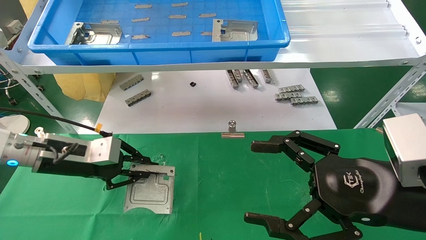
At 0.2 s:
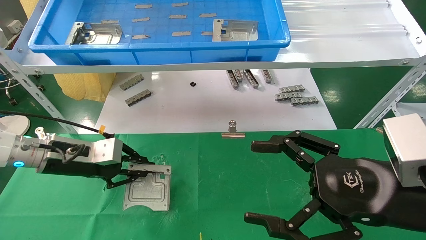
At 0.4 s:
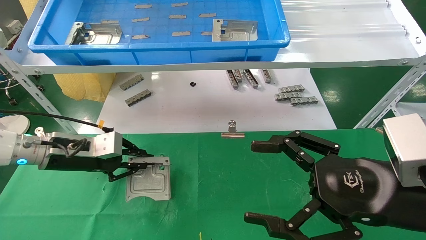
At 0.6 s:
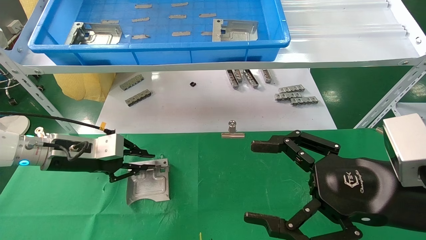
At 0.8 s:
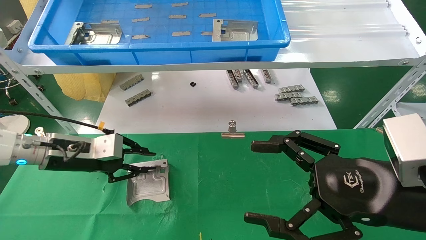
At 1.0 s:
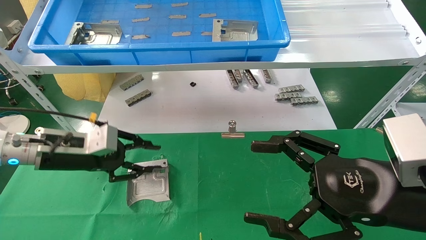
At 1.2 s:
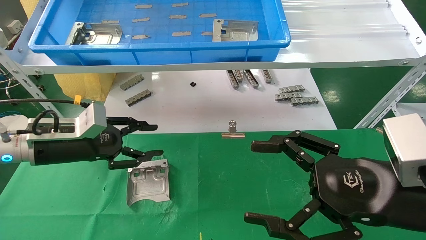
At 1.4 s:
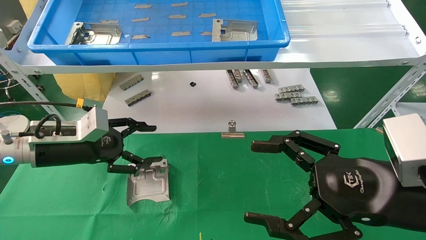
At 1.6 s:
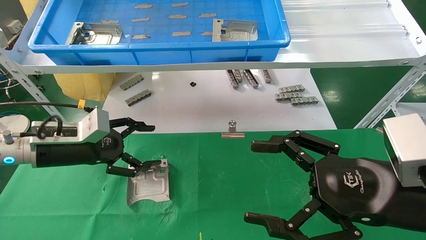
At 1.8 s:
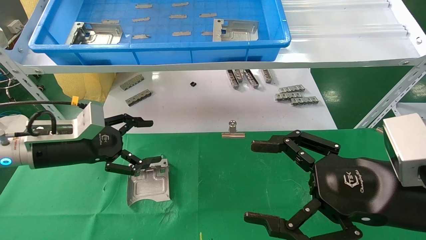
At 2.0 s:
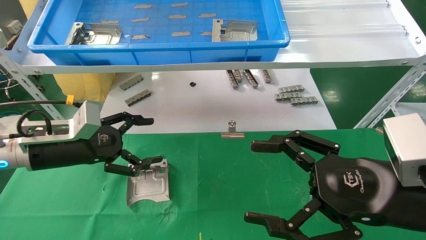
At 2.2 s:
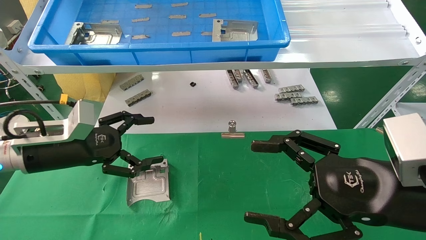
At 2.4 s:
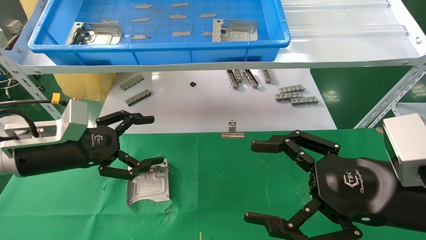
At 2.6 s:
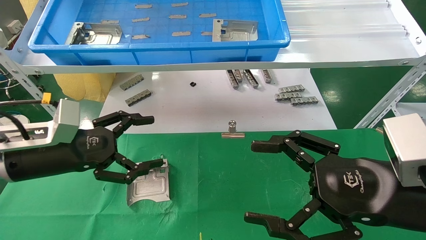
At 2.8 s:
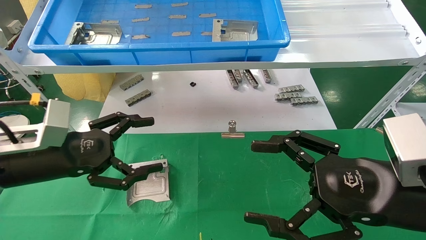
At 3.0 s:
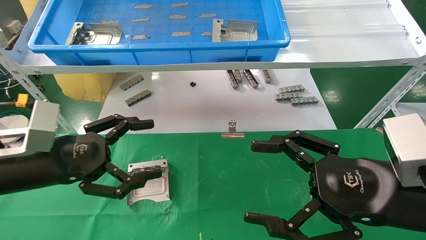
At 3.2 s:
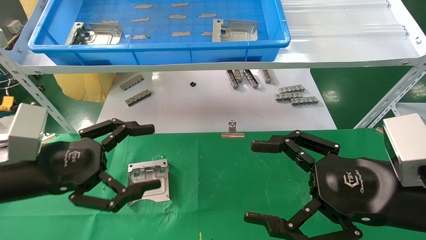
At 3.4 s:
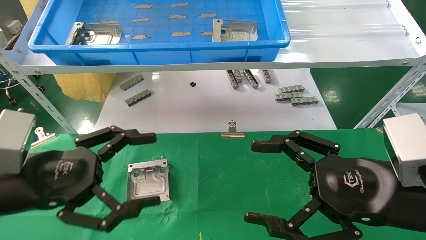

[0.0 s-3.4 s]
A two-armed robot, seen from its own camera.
Task of the whole recording: use the mechanical arm to pick up the parts and place them on the table.
Step, 0.0 to 2.6 s: Place the hard drive bracket into the box.
0.0 to 1.6 s: The left gripper opens.
1.6 to 3.4 s: The left gripper moves backward, some 15 cm.

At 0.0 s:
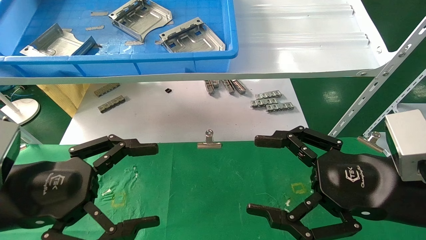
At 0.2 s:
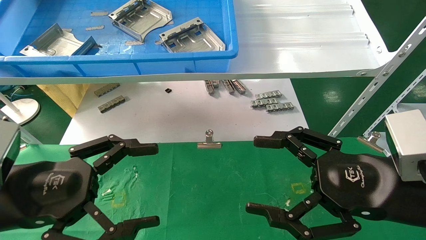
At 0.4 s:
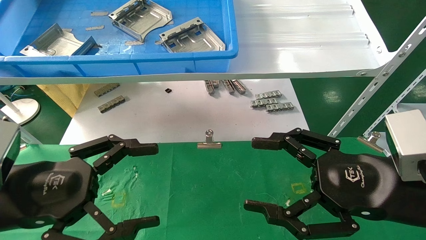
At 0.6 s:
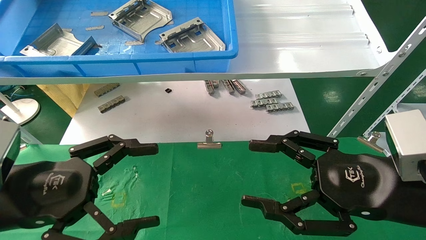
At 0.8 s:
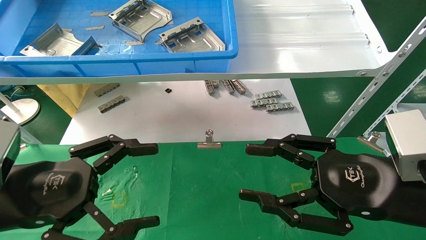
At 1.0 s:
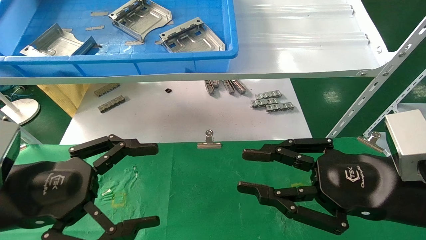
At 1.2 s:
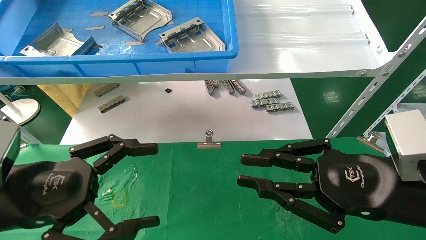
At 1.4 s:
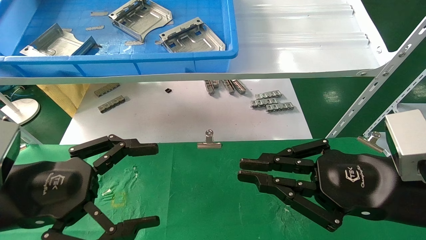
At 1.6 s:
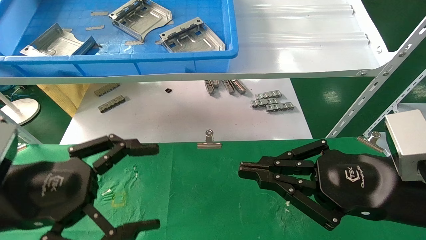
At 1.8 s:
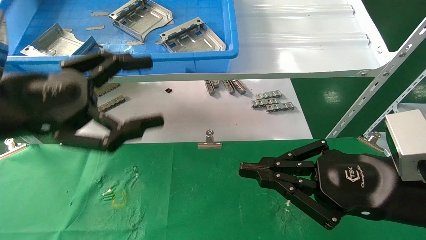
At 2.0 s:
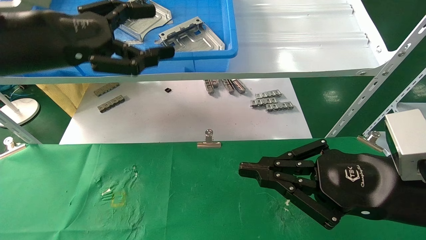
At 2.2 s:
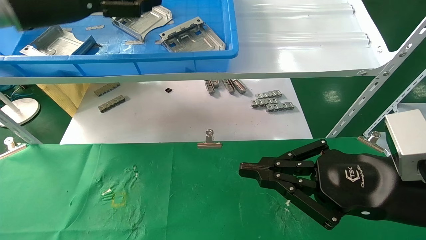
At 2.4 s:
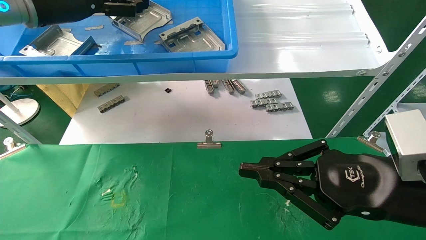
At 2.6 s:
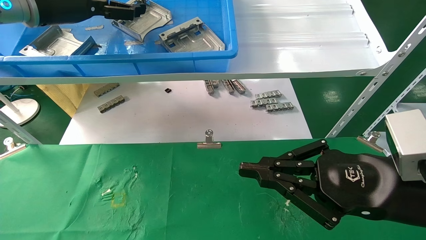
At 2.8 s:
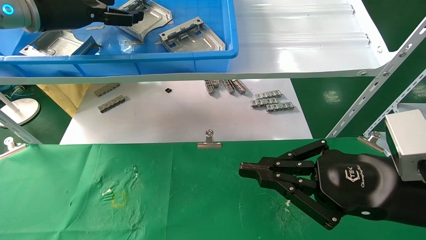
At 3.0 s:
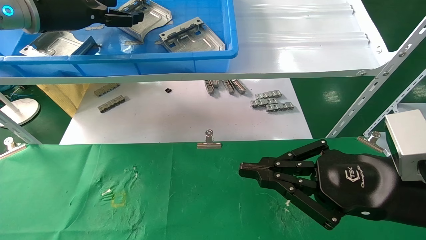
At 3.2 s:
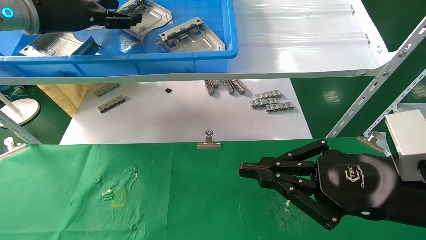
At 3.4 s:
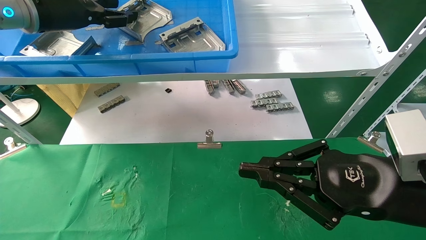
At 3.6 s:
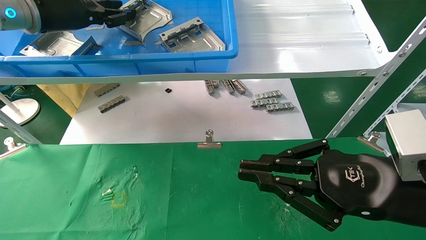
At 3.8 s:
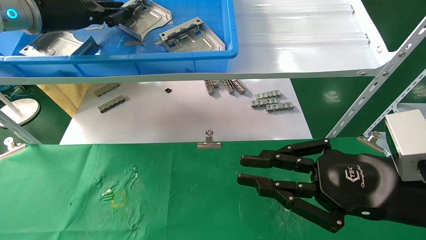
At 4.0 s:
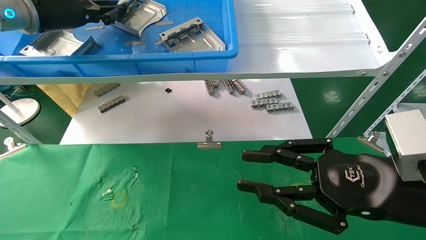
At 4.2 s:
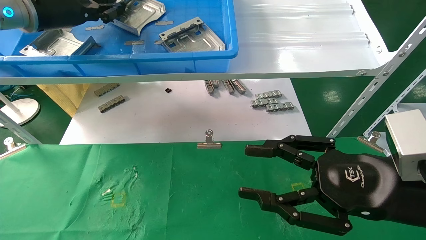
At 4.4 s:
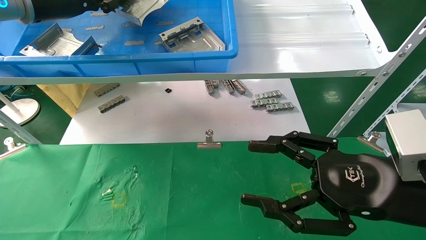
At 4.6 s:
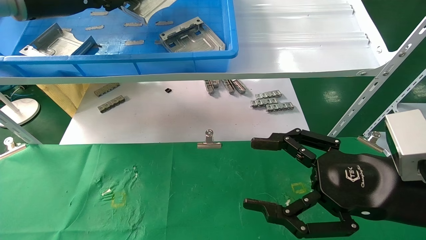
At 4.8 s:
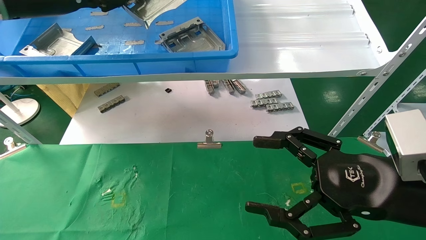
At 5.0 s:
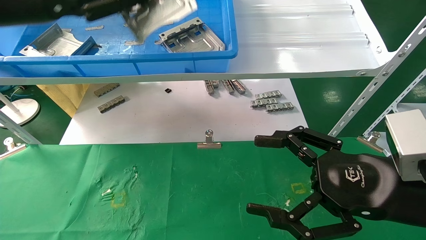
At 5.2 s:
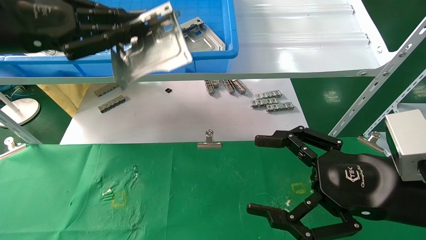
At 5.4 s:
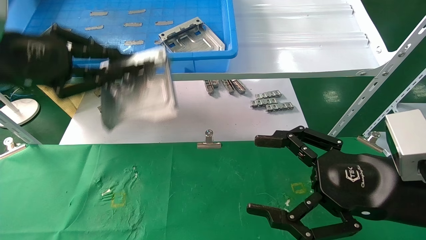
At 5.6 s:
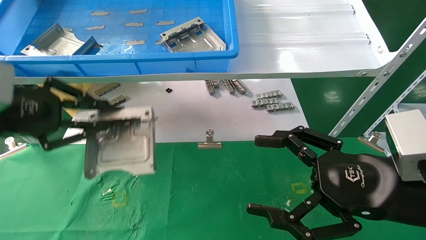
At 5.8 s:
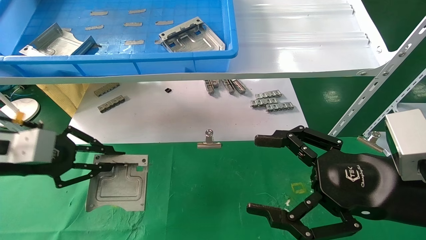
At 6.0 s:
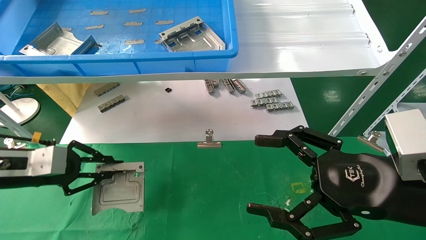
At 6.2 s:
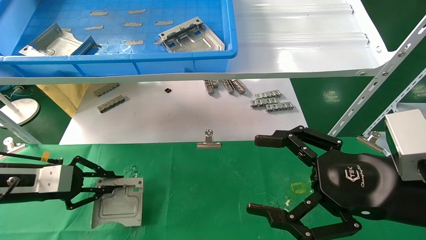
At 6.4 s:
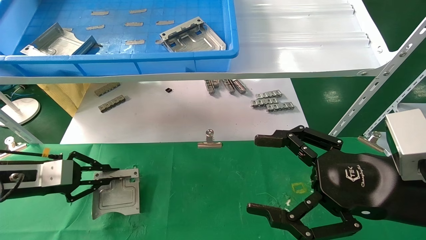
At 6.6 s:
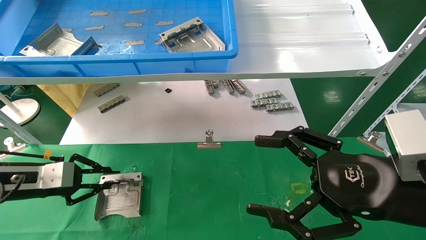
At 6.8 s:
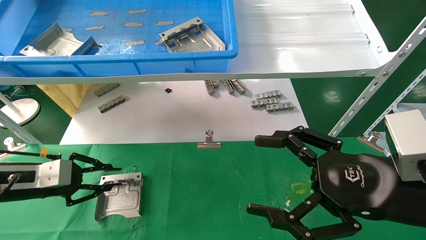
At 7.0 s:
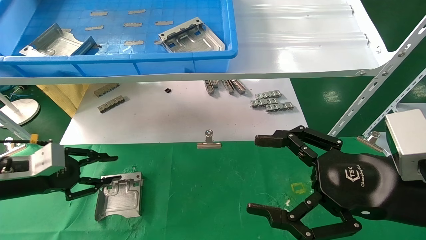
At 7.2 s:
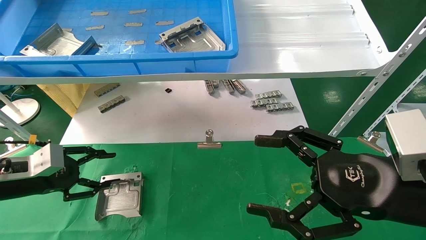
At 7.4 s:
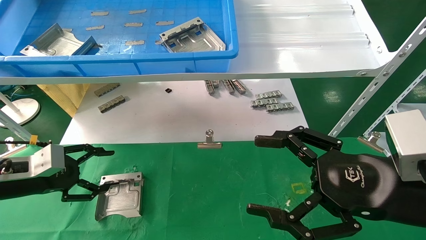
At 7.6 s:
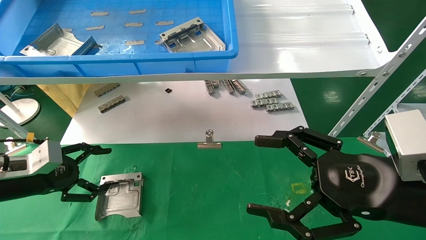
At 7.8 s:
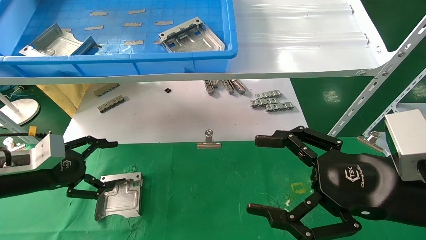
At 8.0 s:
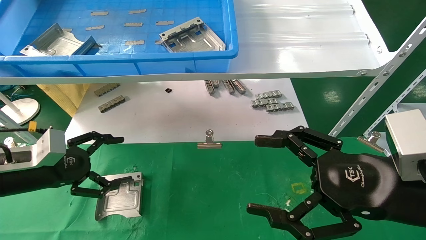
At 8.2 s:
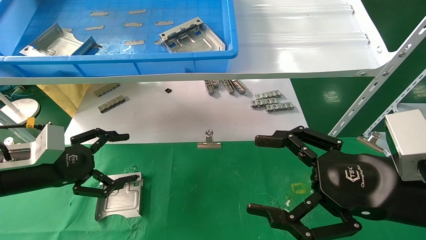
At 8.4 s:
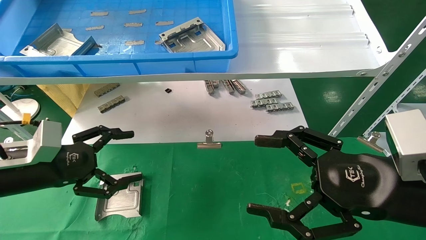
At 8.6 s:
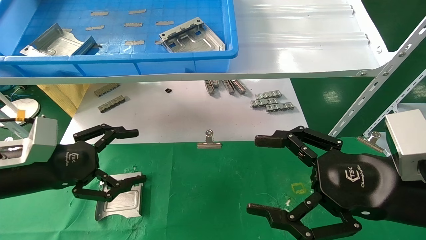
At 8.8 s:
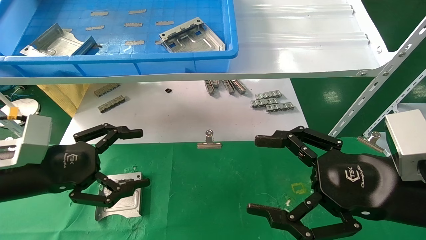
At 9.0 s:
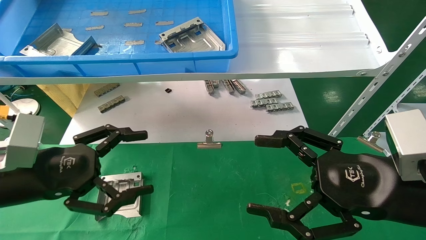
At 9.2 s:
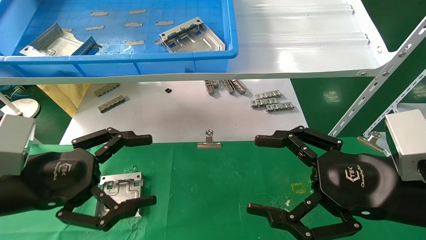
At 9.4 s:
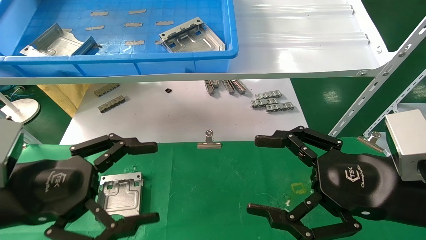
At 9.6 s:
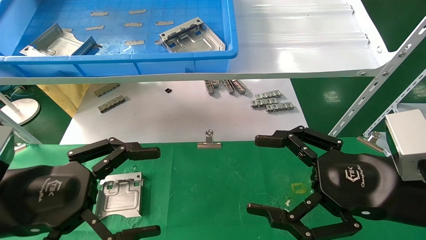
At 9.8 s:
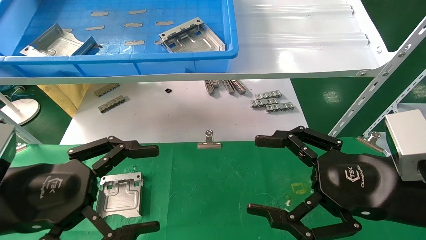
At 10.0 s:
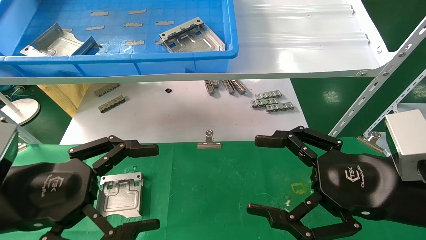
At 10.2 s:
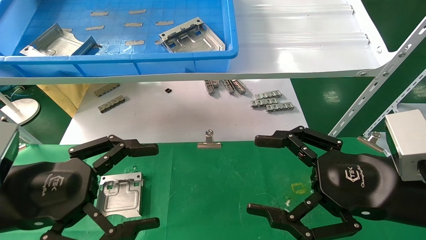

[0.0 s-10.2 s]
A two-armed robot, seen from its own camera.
Task of the whole recording: use the mechanical arm to pick up the parts and place them on the table.
Step, 2.0 to 4.0 s: Pick up the hard drive bracket from the feeding area.
Step, 4.2 to 6.6 s: Place the hard drive bracket into the box.
0.0 to 1.4 s: The right gripper closes its fingers.
1.4 to 3.0 s: The left gripper moves upward and forward, about 30 cm.
3.0 to 4.4 s: The left gripper closes; the right gripper opens up.
4.4 to 5.8 s: The left gripper is displaced downward and backward by approximately 25 cm. The right gripper opens its fingers.
5.8 to 7.2 s: The left gripper is displaced downward by approximately 10 cm, and opens up.
7.2 to 8.8 s: The left gripper shifts some 10 cm to the right, backward and upward, and opens up.
8.8 to 10.2 s: The left gripper travels backward by about 5 cm.
